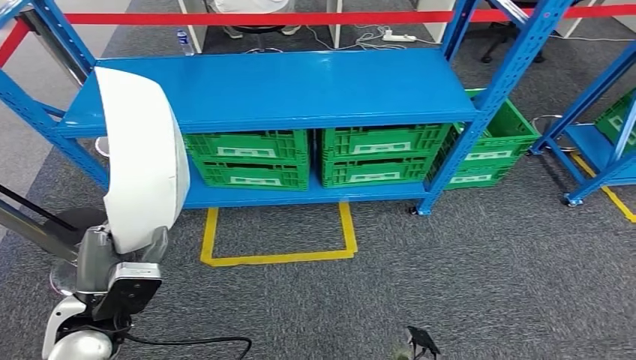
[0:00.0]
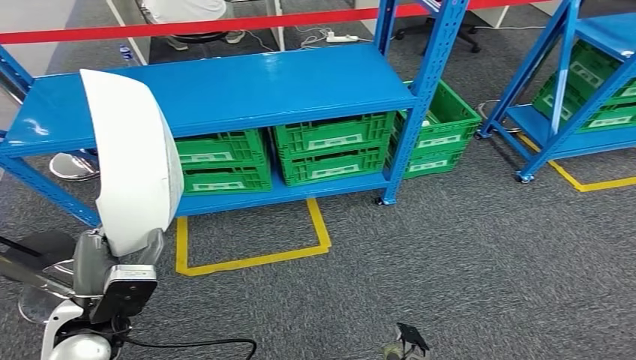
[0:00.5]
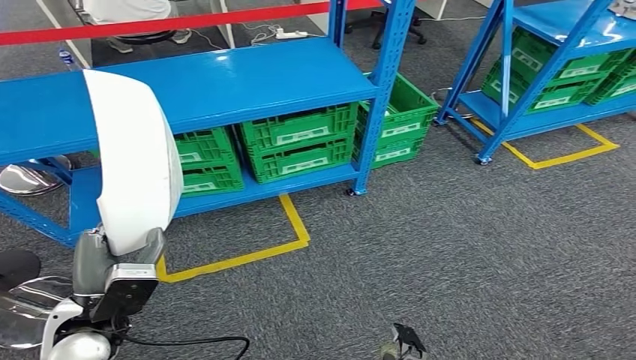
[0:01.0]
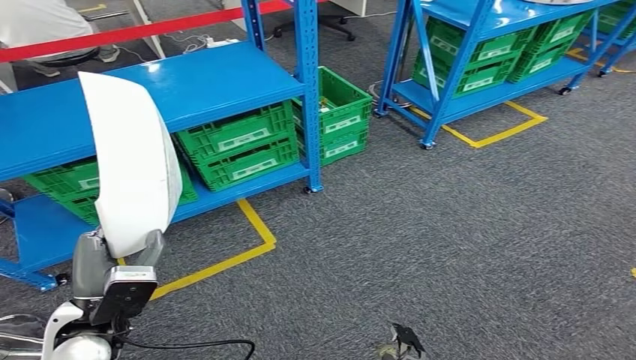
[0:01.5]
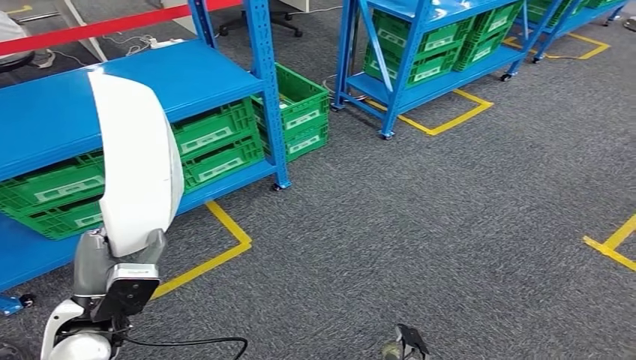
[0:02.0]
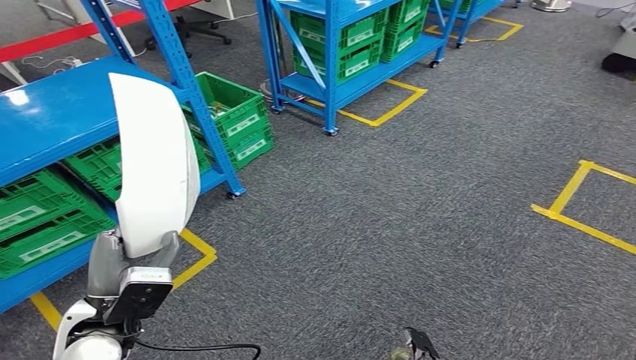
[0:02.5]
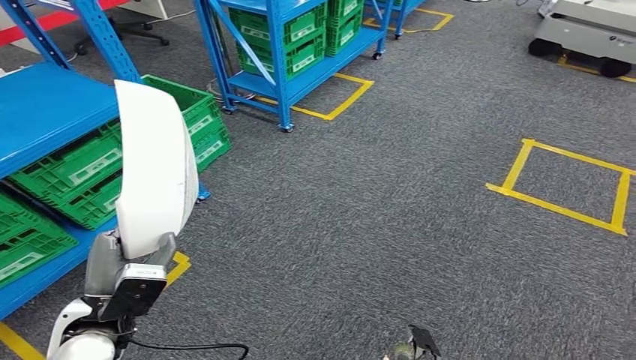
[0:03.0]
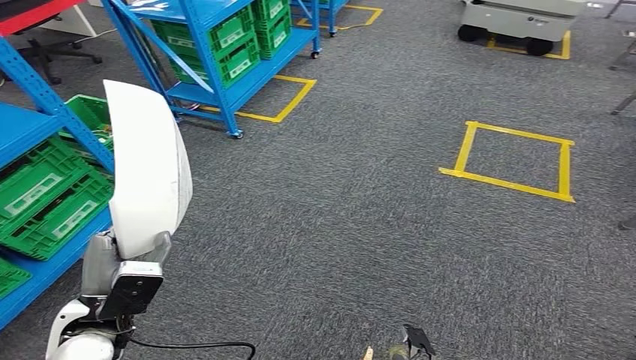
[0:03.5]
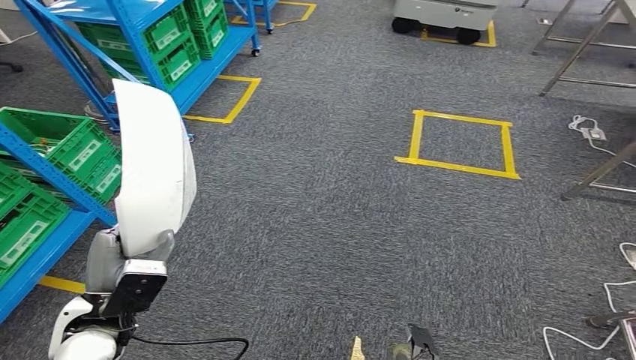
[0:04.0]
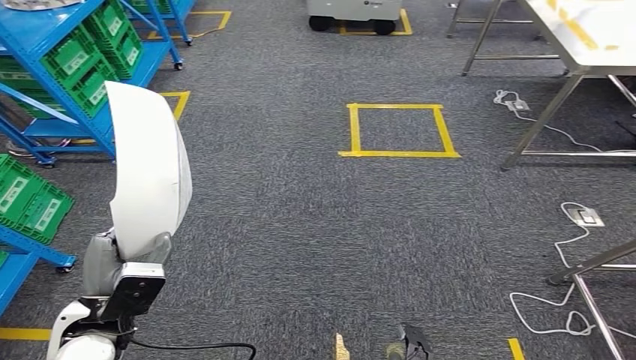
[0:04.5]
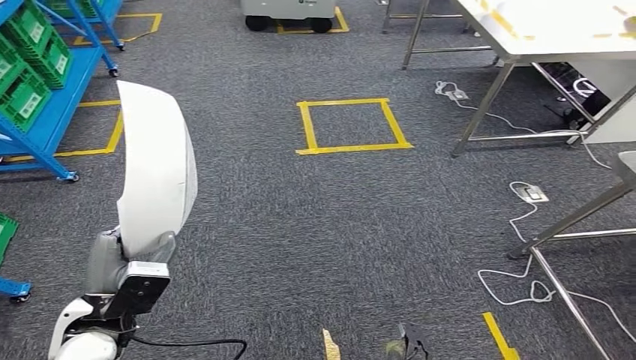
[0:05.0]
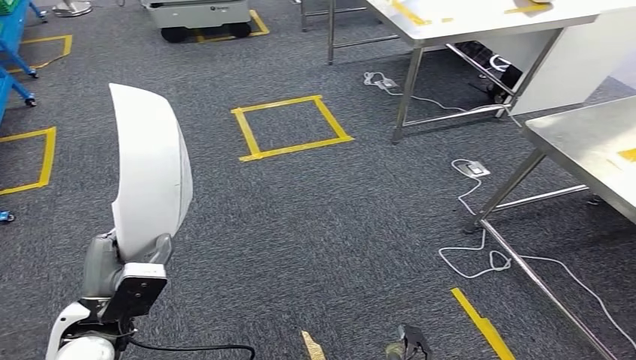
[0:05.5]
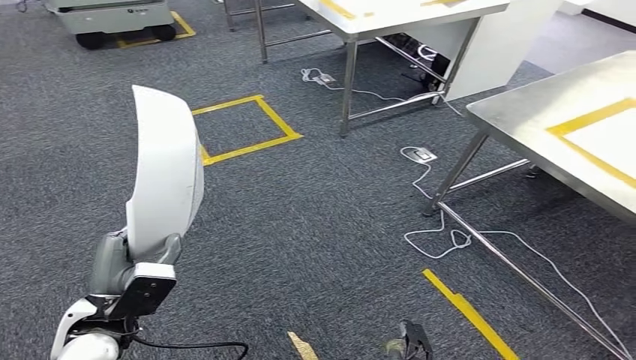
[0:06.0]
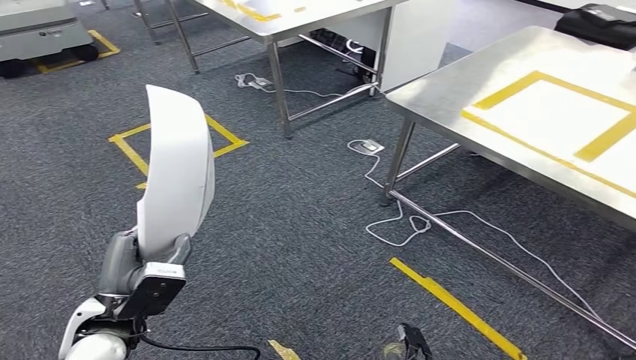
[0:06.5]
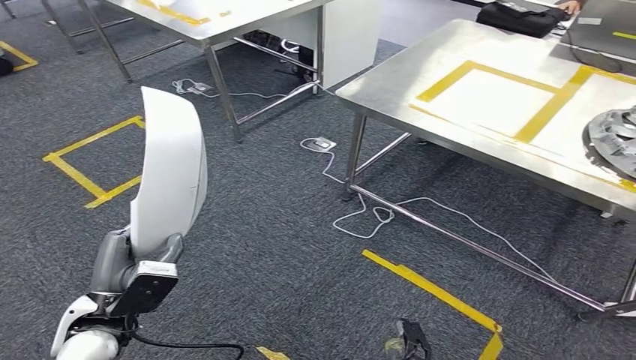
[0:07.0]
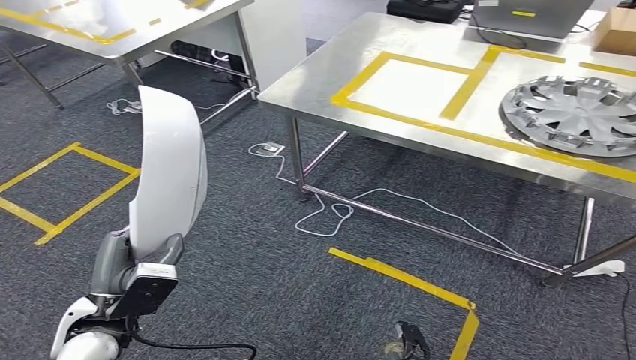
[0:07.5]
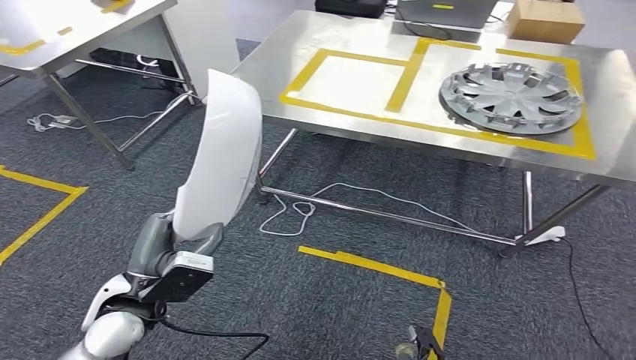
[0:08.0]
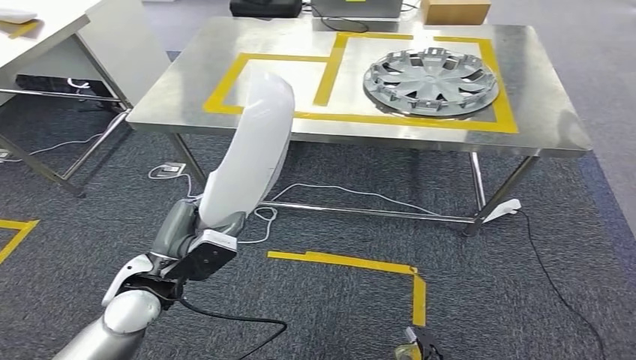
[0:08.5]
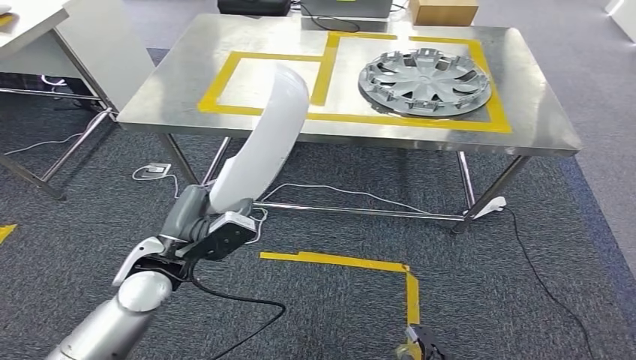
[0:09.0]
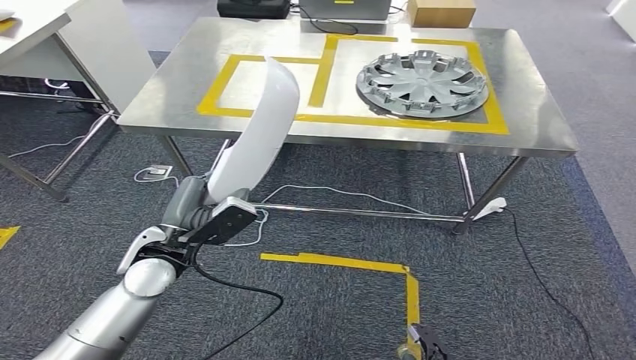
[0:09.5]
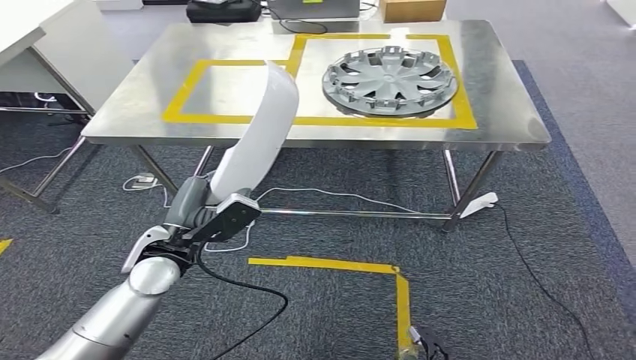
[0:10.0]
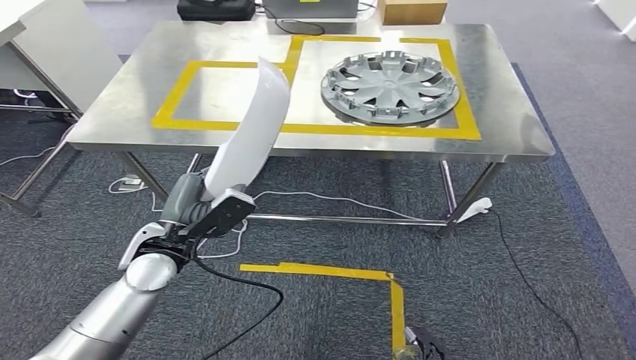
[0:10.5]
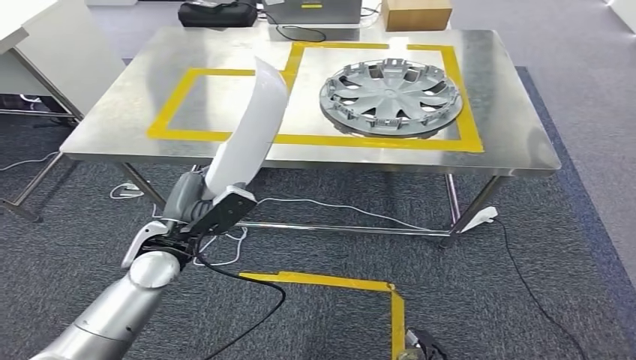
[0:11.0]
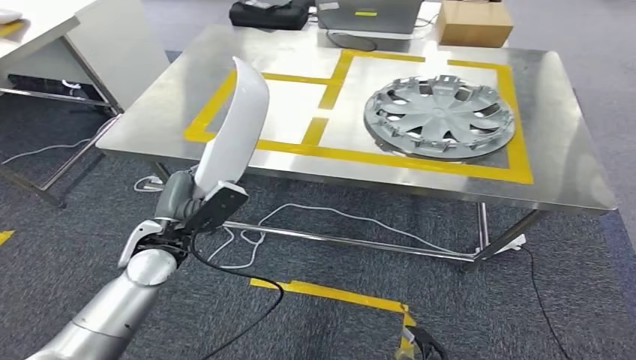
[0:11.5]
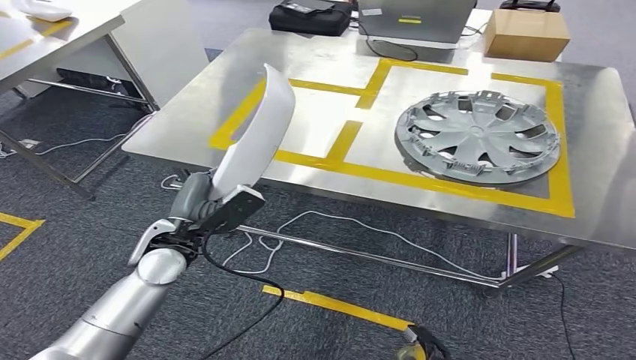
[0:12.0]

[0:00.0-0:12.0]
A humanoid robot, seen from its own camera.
Step, 0:00.0 to 0:08.5: Move the small parts to the workbench.

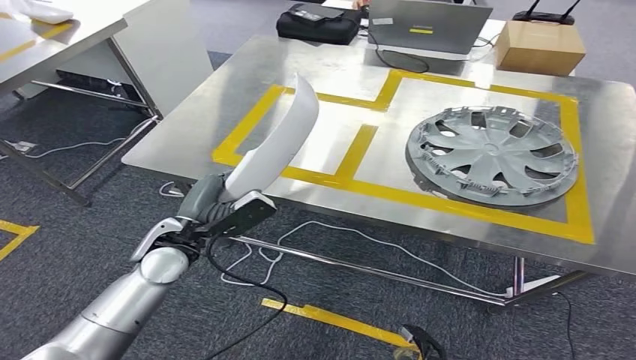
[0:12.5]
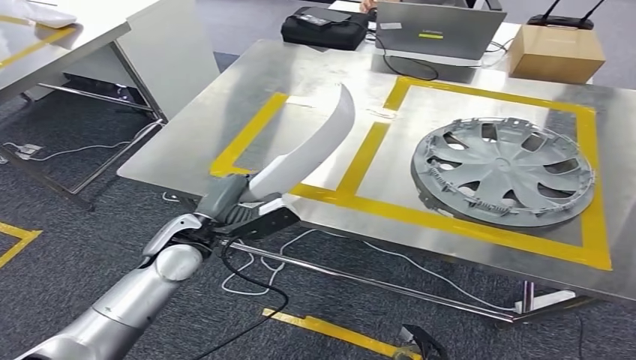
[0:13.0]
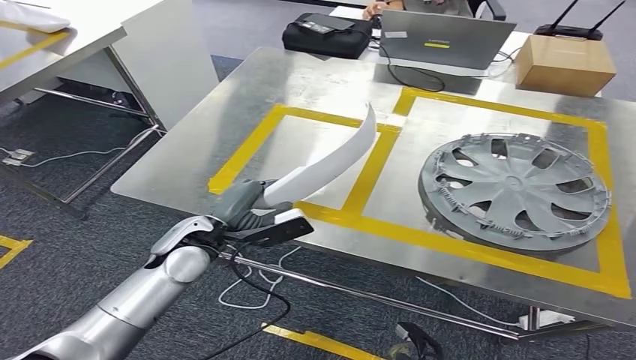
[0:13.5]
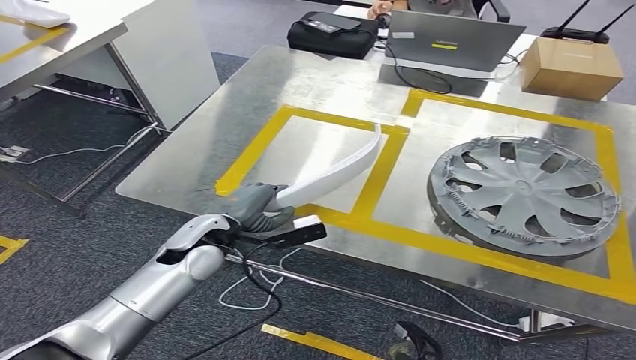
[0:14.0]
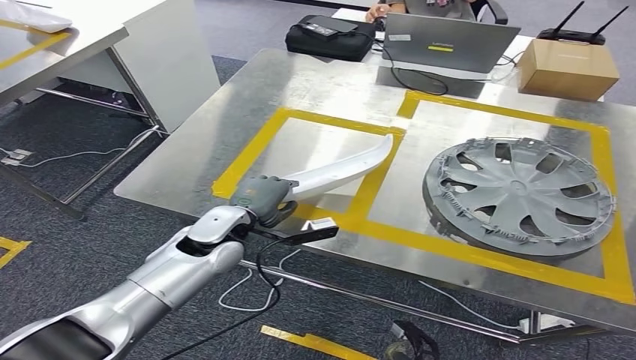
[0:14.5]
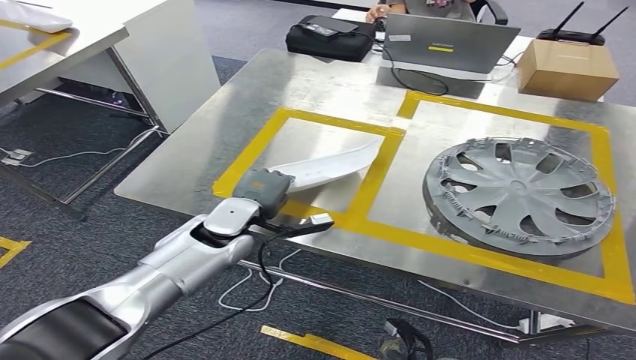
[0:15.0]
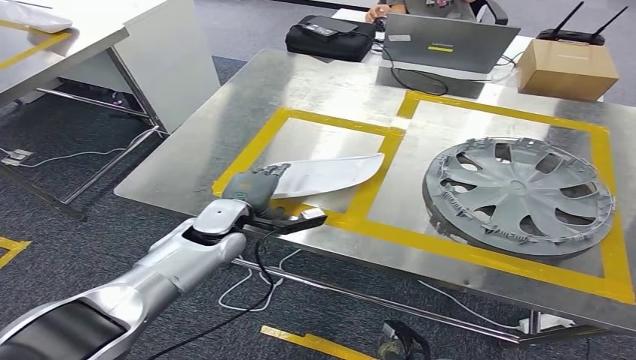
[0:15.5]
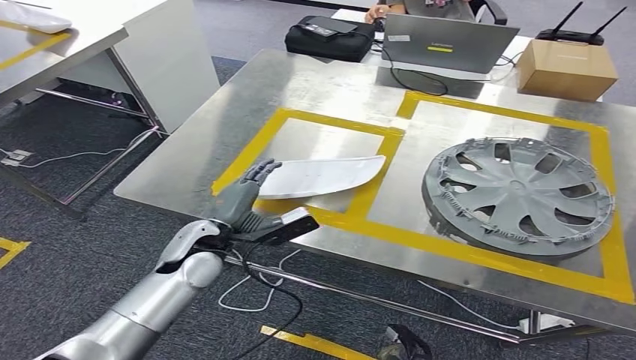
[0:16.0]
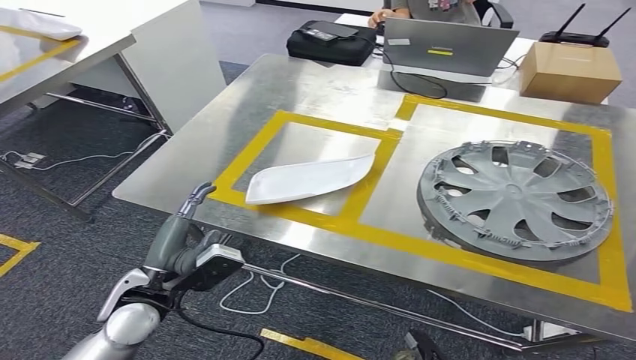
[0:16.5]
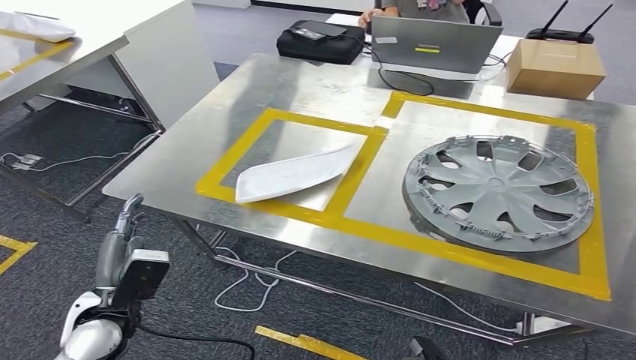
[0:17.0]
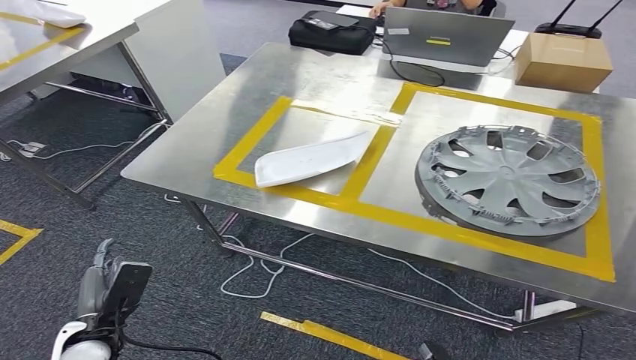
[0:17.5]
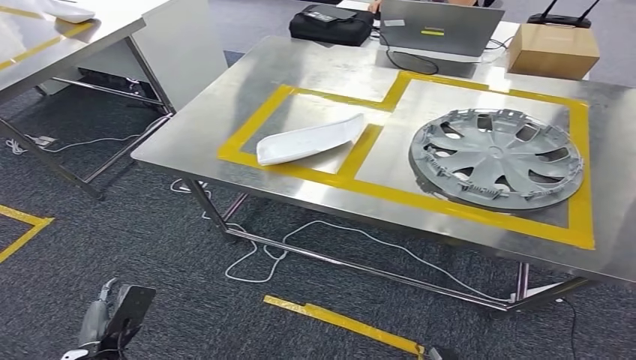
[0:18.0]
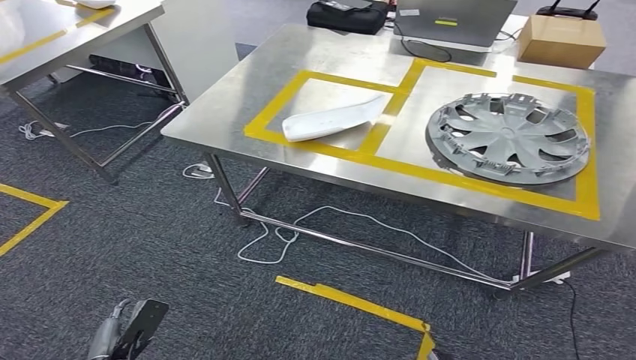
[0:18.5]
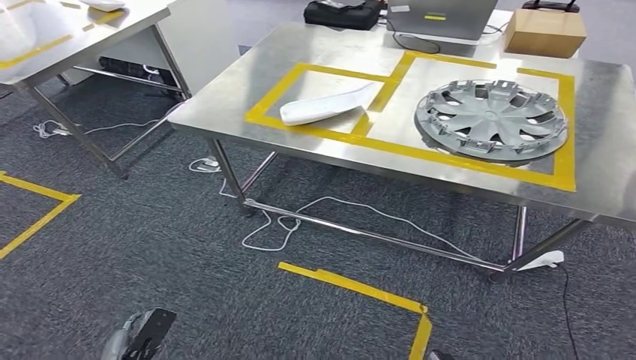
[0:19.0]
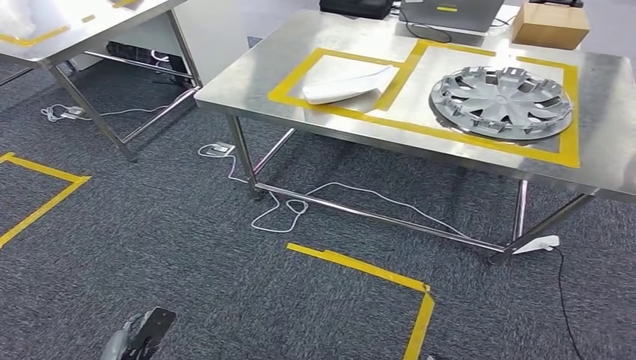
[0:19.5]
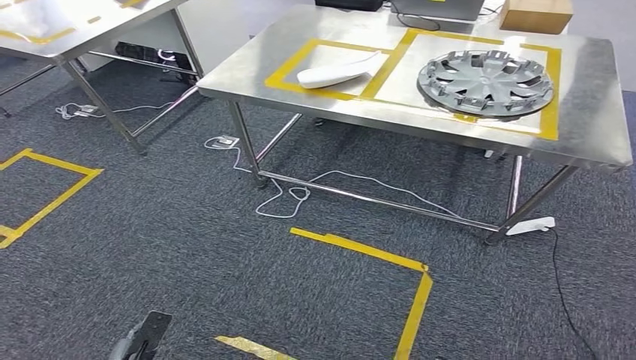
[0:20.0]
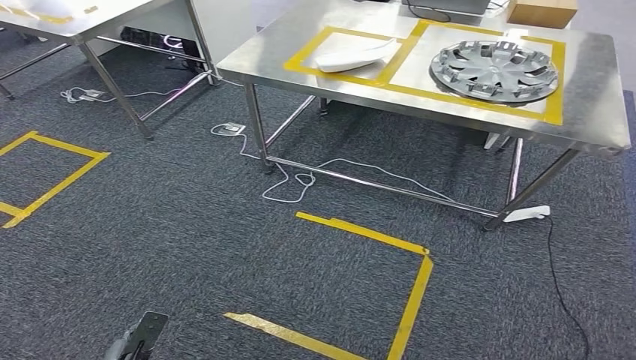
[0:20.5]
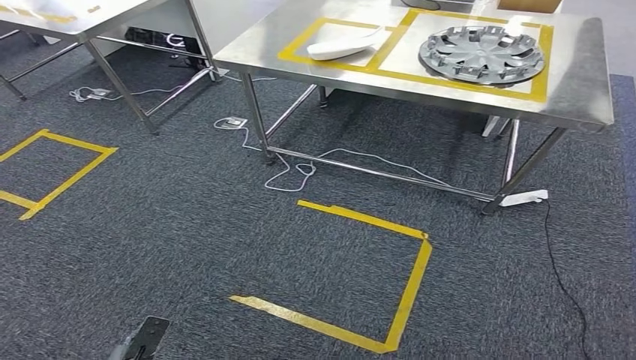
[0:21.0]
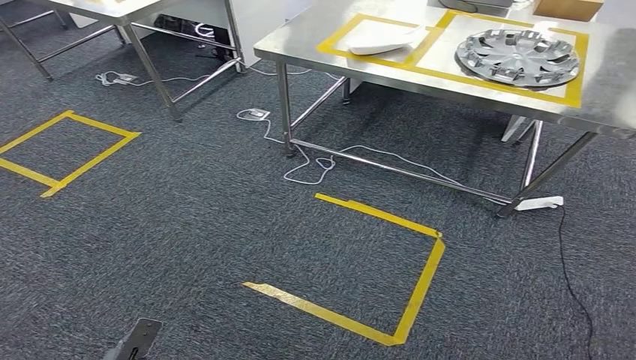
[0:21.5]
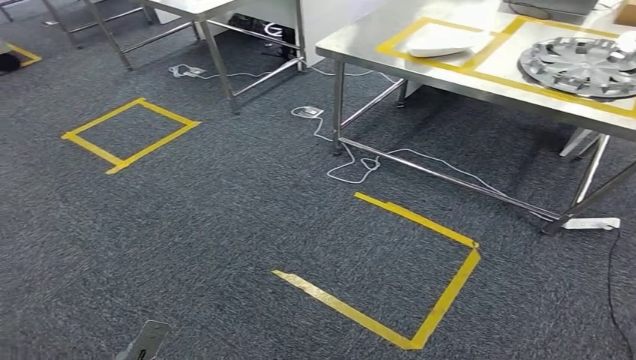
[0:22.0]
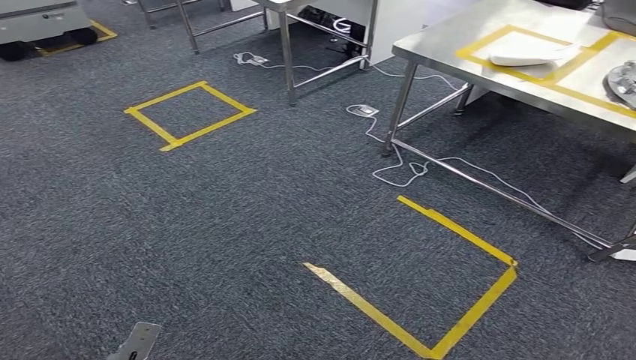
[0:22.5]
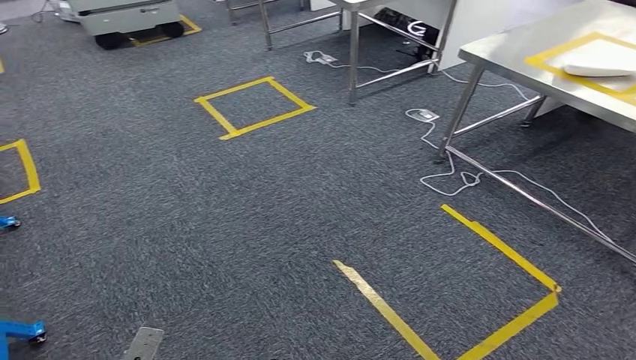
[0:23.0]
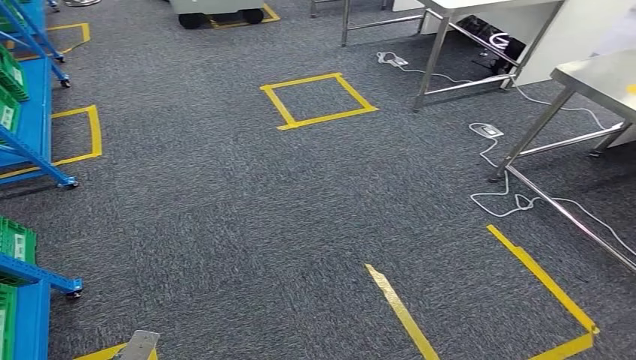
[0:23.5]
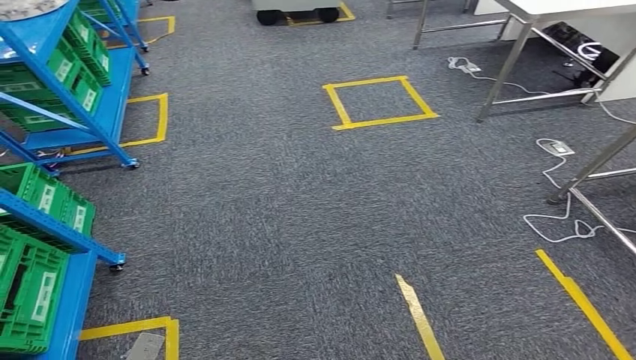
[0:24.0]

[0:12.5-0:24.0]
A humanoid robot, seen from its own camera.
Step, 0:12.5 to 0:22.0: Insert the small parts into the corresponding holes on the workbench.
